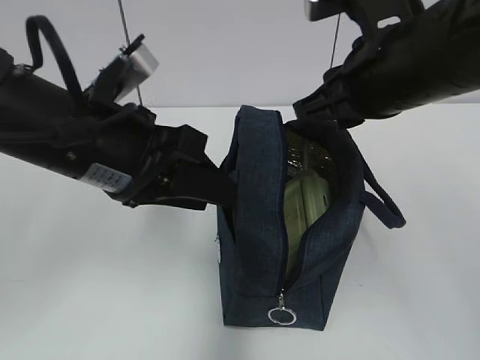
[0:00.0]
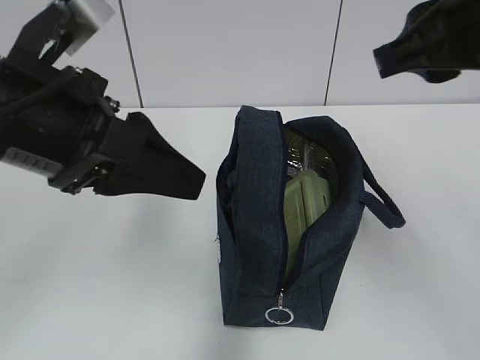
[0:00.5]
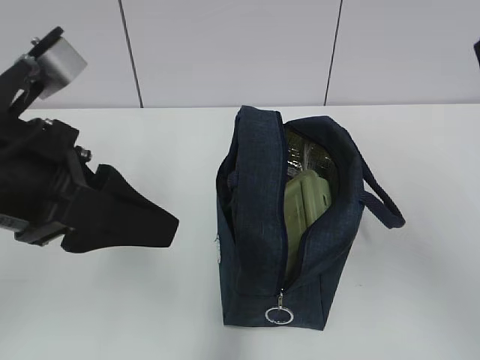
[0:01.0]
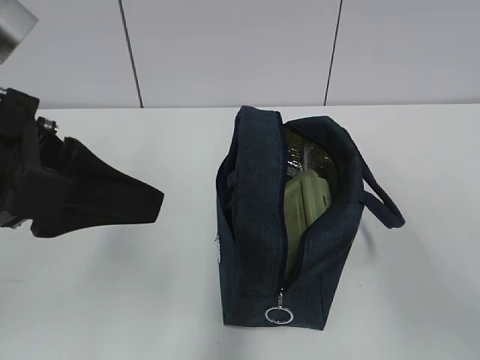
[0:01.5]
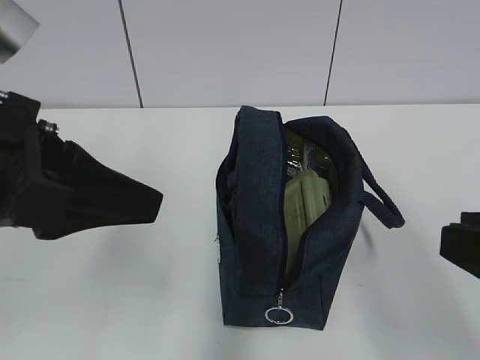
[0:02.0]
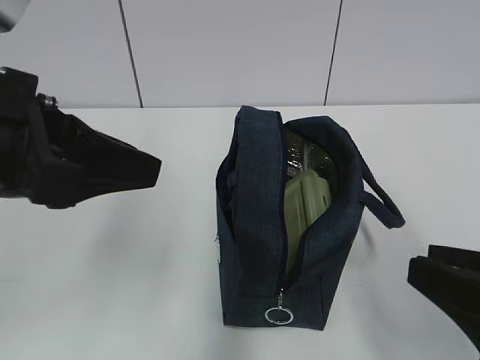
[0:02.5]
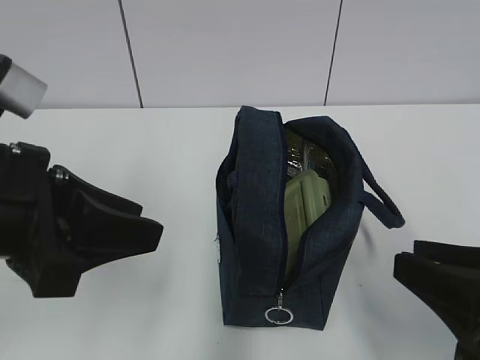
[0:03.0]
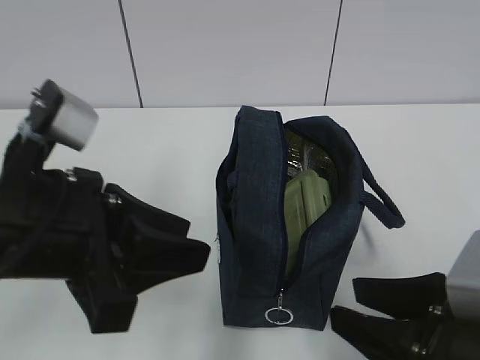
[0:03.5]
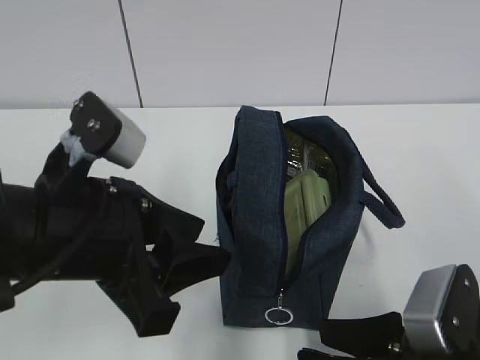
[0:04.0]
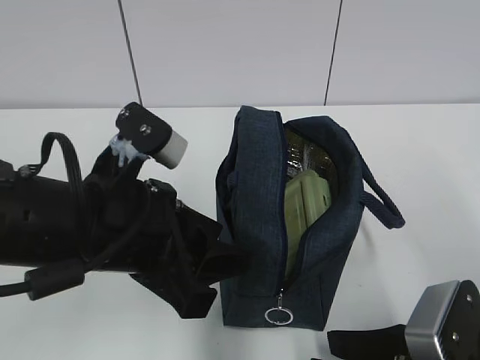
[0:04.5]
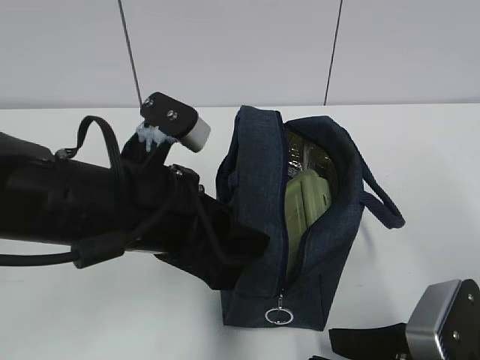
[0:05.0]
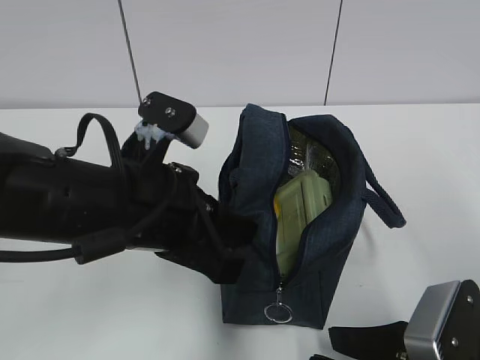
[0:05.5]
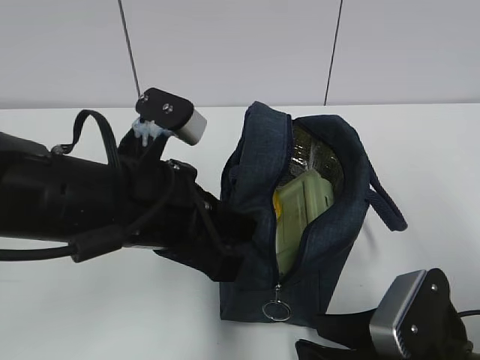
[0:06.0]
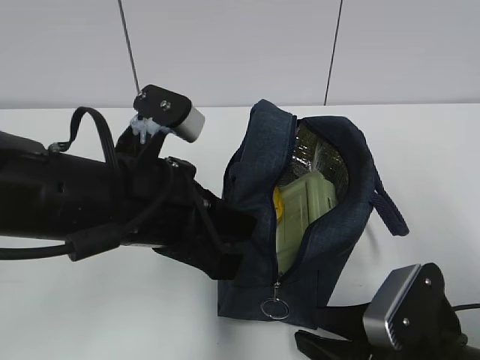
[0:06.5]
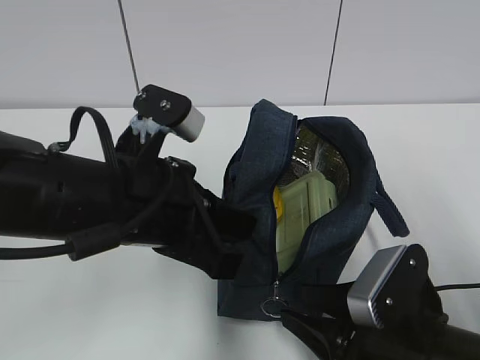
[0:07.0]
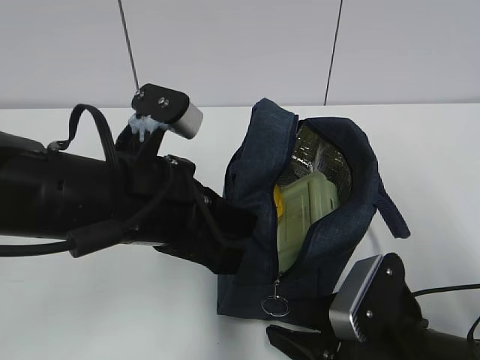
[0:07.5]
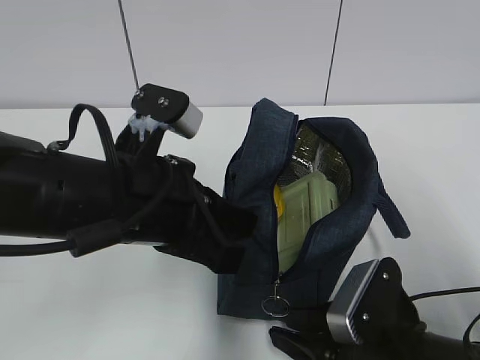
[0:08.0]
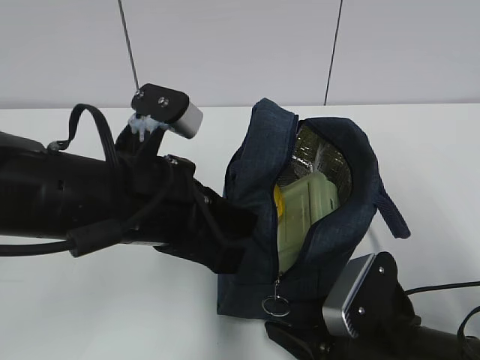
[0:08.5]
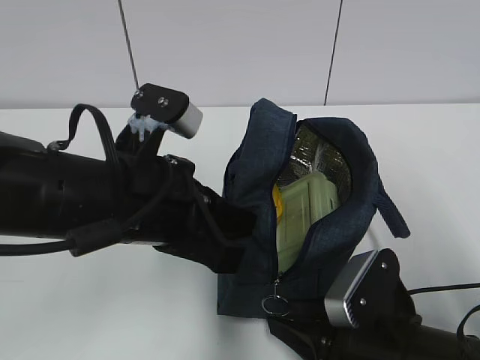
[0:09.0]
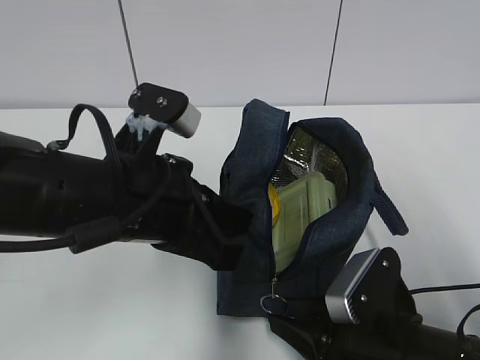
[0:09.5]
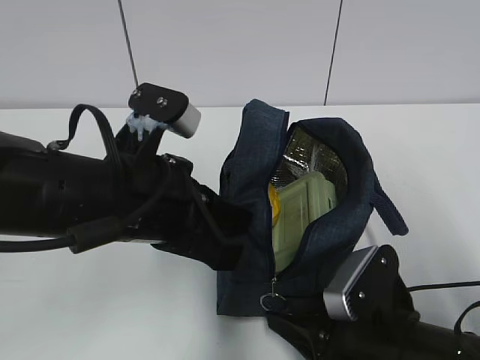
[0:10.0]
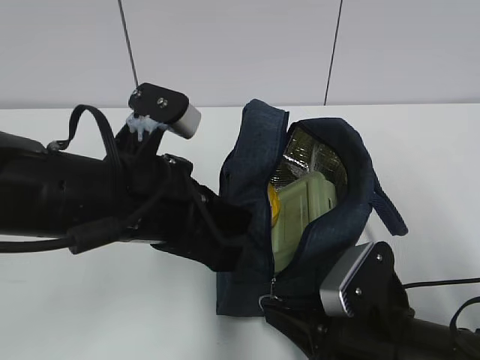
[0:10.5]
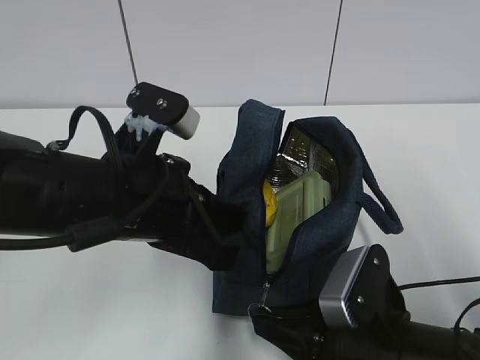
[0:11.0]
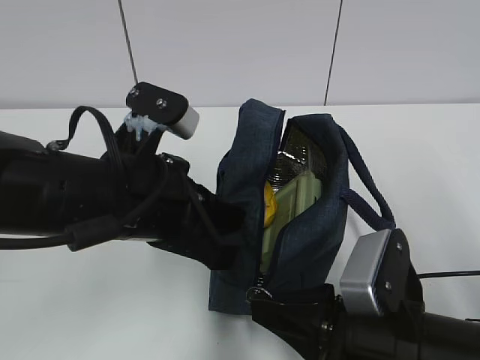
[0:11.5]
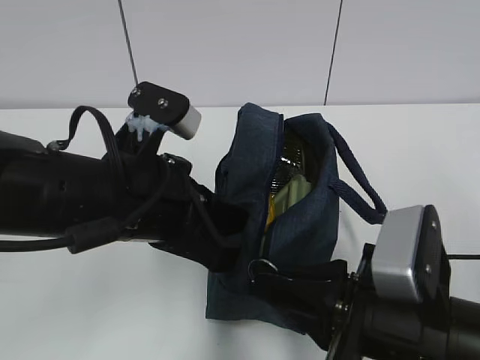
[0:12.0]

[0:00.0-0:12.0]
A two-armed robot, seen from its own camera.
Step, 0:00.0 to 0:05.5: Grab the lunch bag with your left hand.
0:00.0 to 0:02.0: The left gripper goes approximately 5 cm backward. Meanwhile the right gripper shifts approximately 20 cm backward and to the right.
0:02.0 to 0:04.0: The left gripper is displaced downward by about 5 cm. Meanwhile the right gripper heads downward, covering approximately 15 cm.
0:04.0 to 0:06.0: The left gripper changes place by some 5 cm, and closes up.
0:06.0 to 0:08.0: The grippers move only a little.
0:08.0 to 0:10.0: Both grippers stay about where they are.
0:10.0 to 0:12.0: The right gripper is displaced upward by roughly 5 cm.

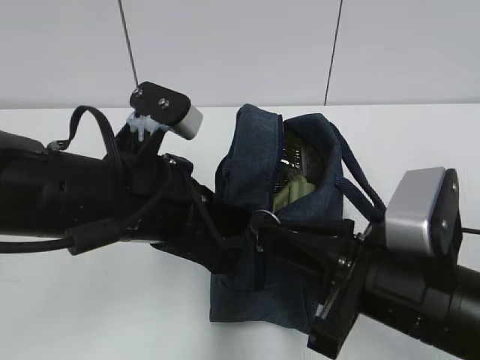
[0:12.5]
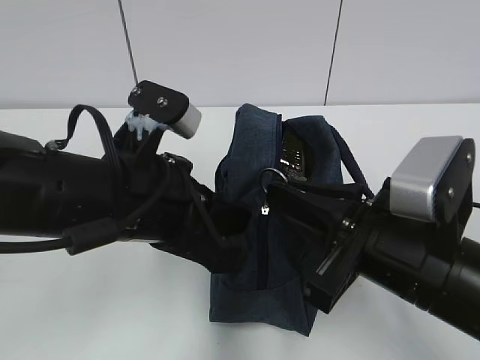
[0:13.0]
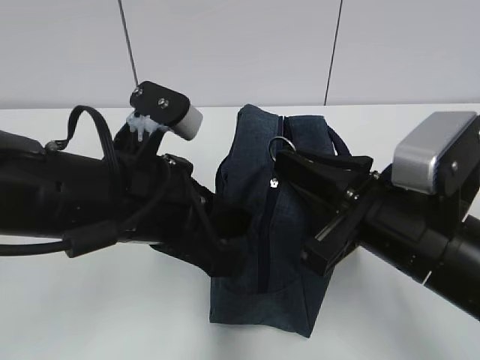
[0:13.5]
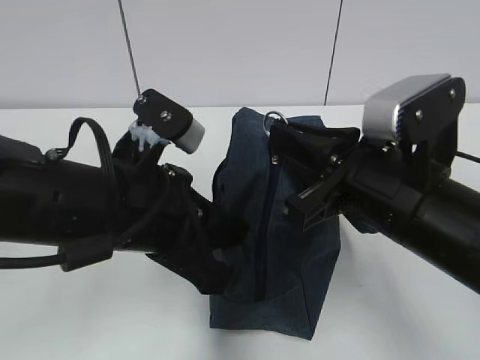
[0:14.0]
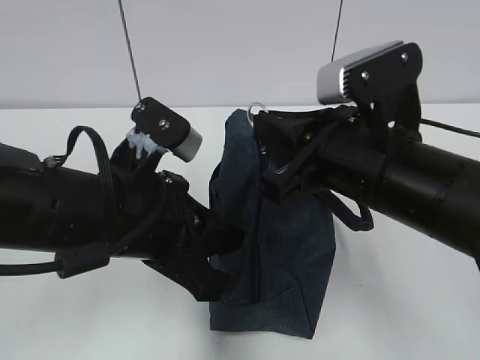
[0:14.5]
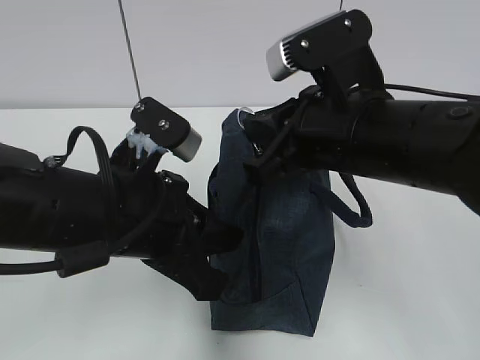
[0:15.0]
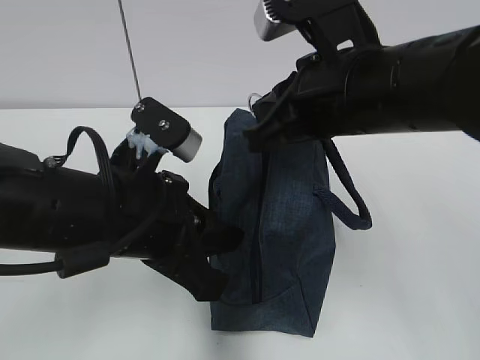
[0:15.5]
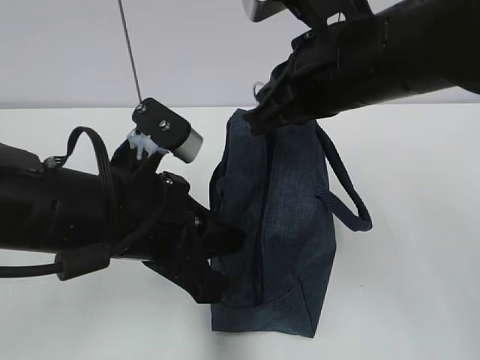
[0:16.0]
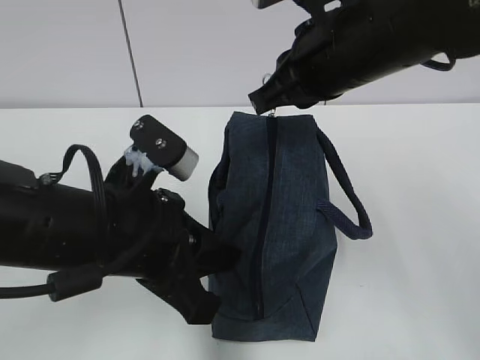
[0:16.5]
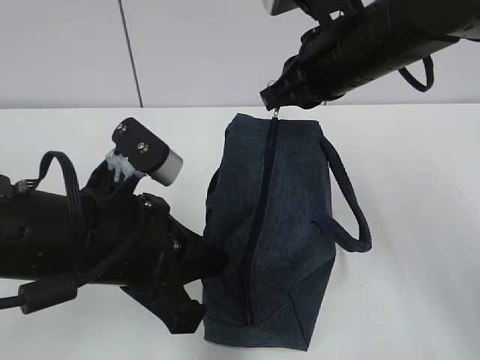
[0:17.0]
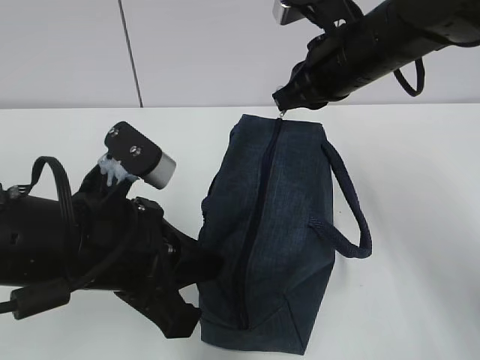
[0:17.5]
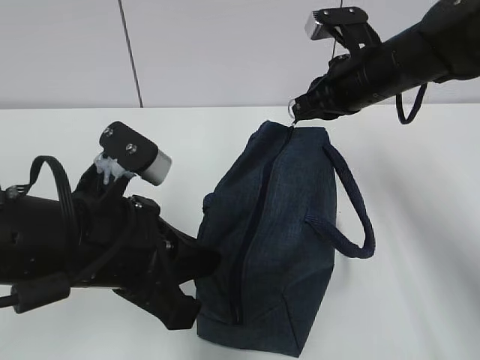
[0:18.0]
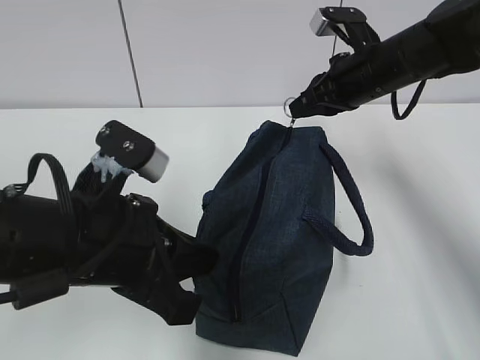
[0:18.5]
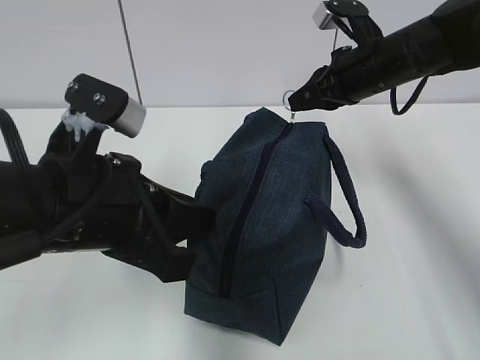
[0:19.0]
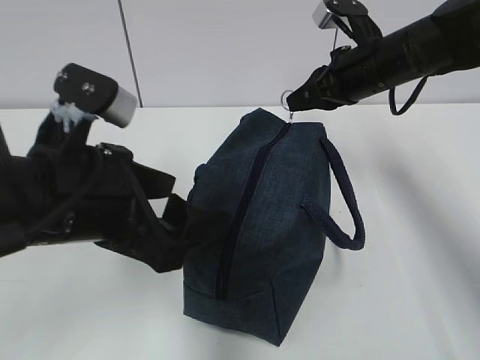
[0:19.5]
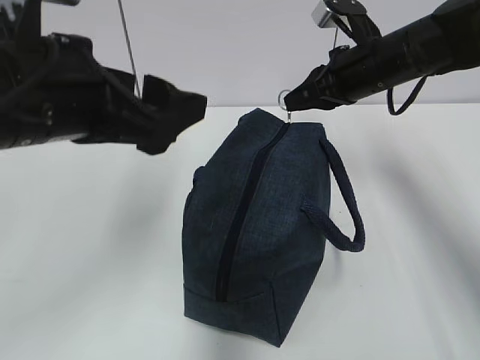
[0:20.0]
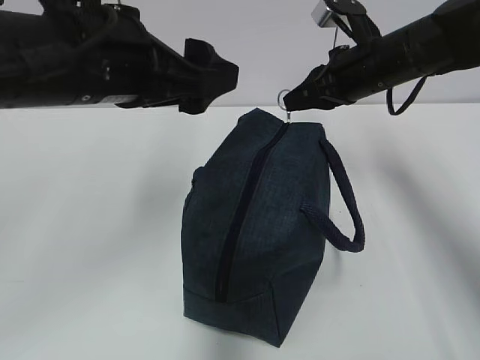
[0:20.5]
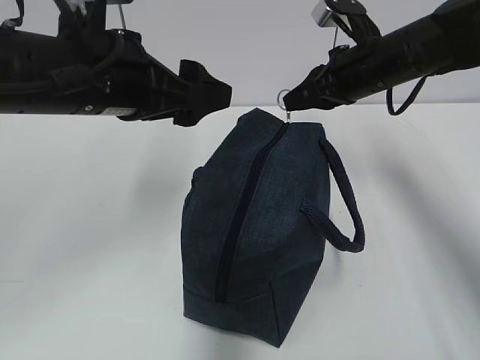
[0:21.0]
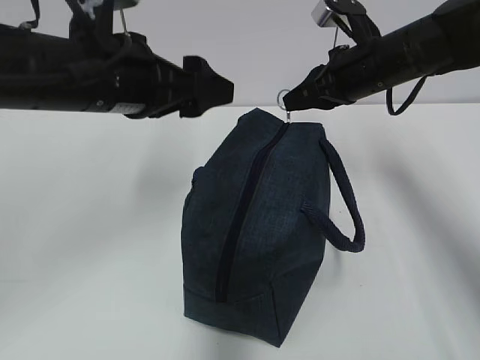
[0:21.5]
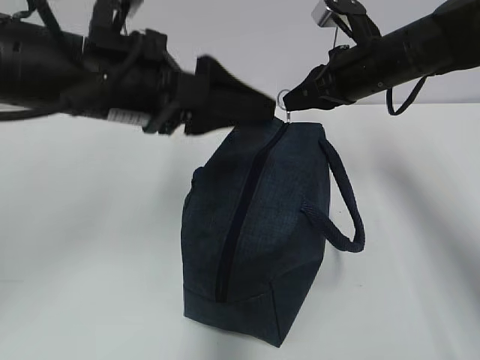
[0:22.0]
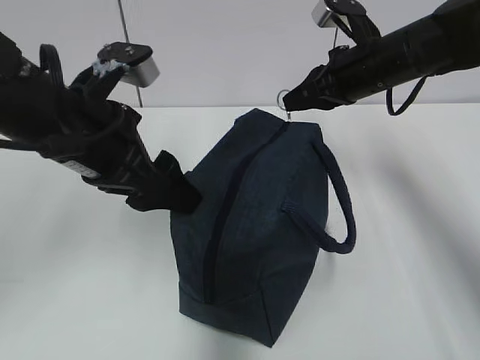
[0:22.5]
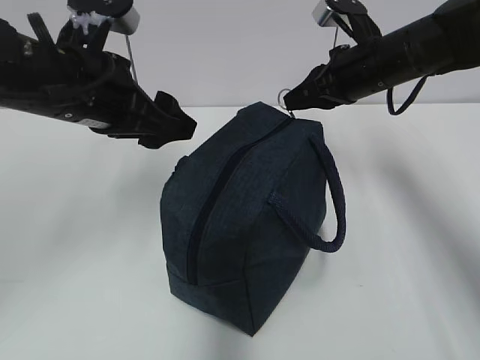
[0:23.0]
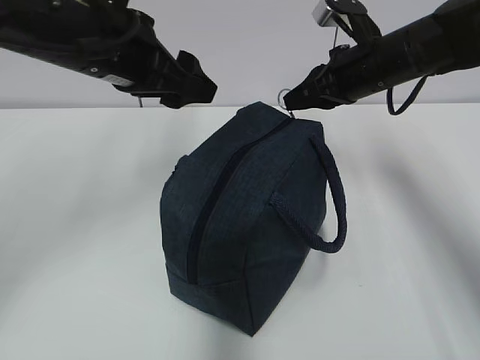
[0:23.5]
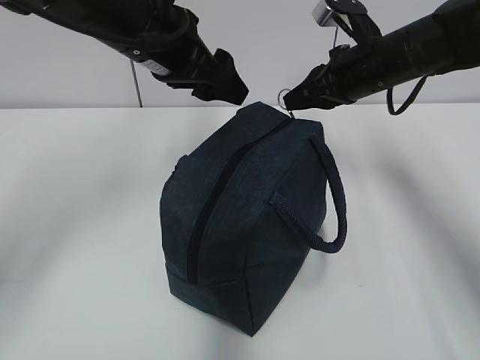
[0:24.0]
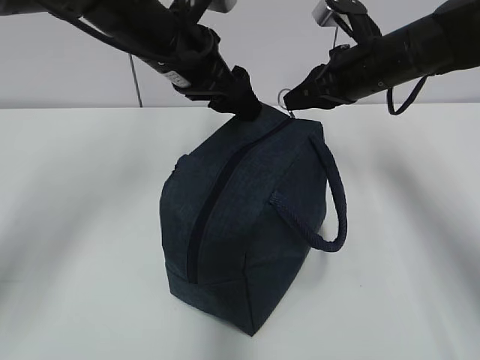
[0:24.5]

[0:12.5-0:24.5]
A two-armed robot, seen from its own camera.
0:12.5 to 0:14.5: The right gripper goes roughly 10 cm forward and upward.
0:14.5 to 0:16.5: The right gripper travels forward and upward by roughly 10 cm.
0:16.5 to 0:18.5: The right gripper shifts about 15 cm forward, to the right and downward.
0:18.5 to 0:20.5: The left gripper goes approximately 15 cm upward and forward, and opens its fingers.
0:20.5 to 0:22.5: The left gripper is displaced downward by roughly 5 cm.
0:22.5 to 0:24.5: The left gripper travels forward and to the right by some 15 cm.

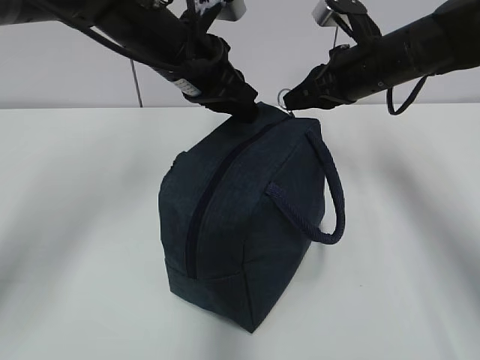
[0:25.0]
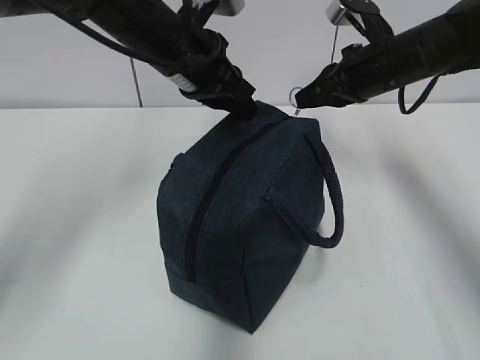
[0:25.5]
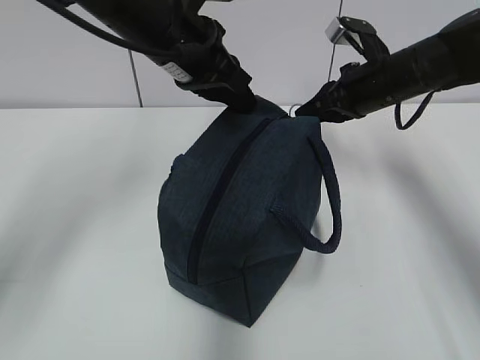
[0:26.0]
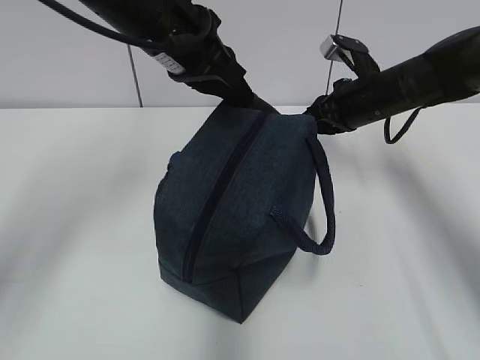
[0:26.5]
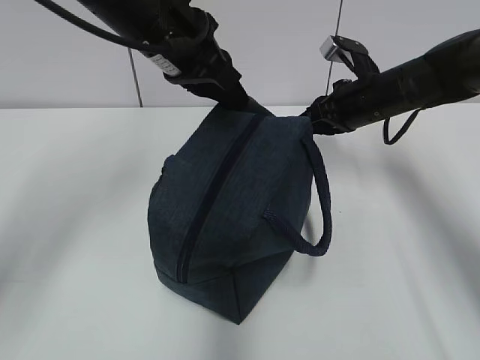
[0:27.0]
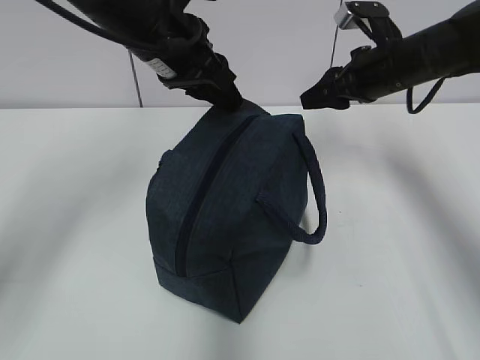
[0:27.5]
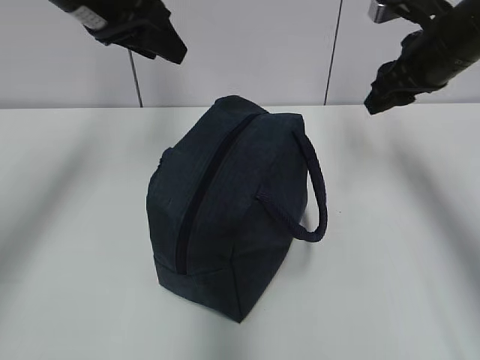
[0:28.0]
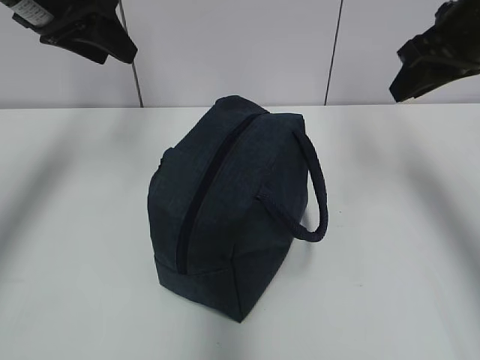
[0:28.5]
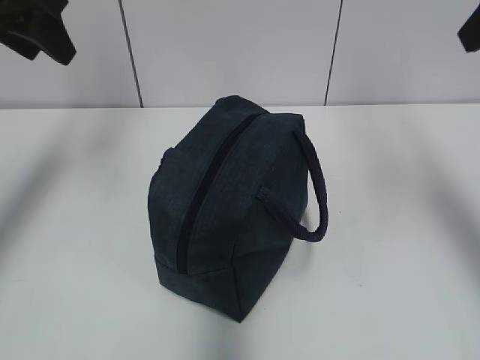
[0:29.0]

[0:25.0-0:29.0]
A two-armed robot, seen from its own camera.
Step, 0:27.0 to 0:27.5: Grab the lunch bag with your left hand.
0:25.0 to 0:27.0: The right gripper shifts about 5 cm downward.
0:27.0 to 0:29.0: The right gripper goes some 30 cm upward and backward, and opens. Meanwhile the left gripper moves to the left and upward, some 15 cm, and opens up.
